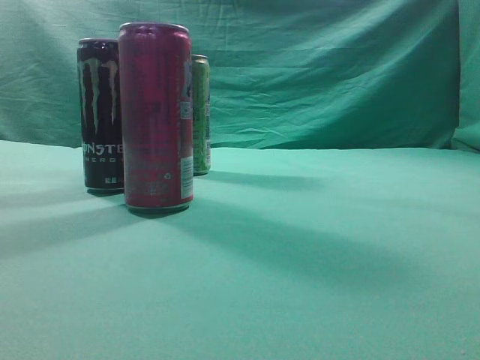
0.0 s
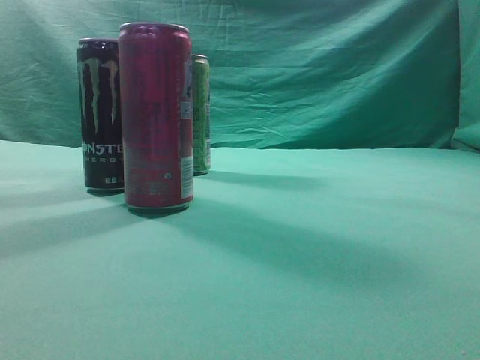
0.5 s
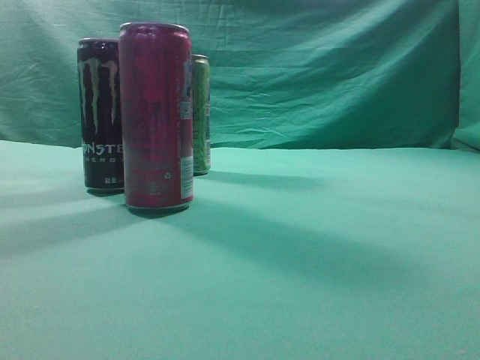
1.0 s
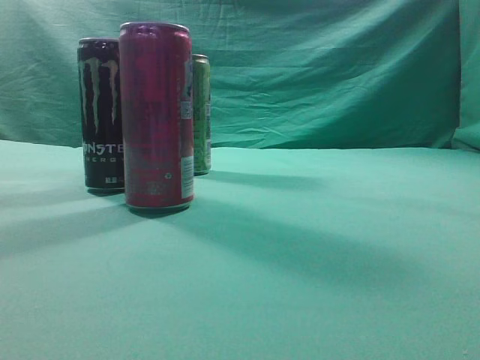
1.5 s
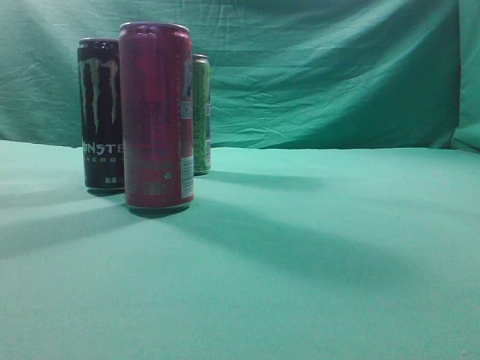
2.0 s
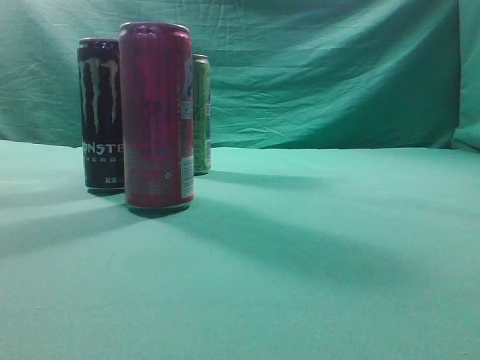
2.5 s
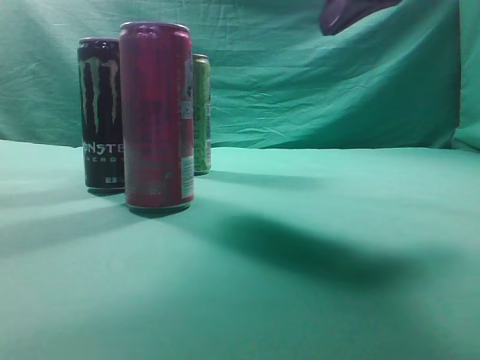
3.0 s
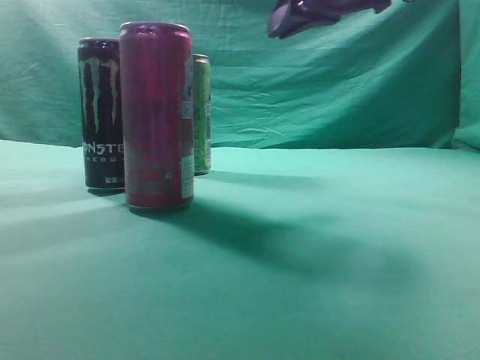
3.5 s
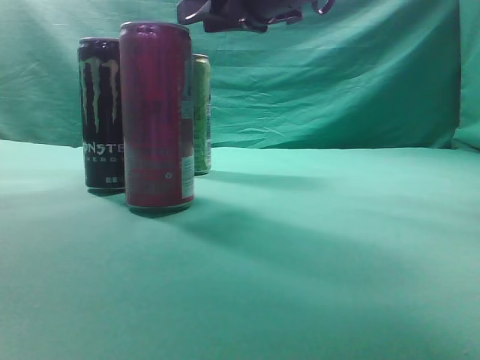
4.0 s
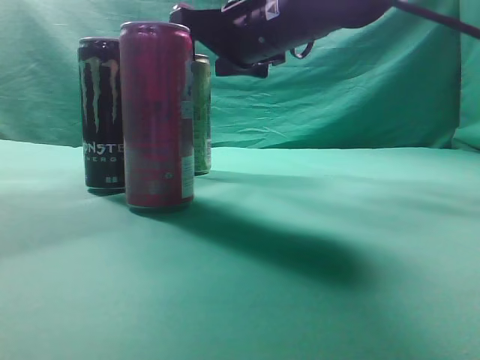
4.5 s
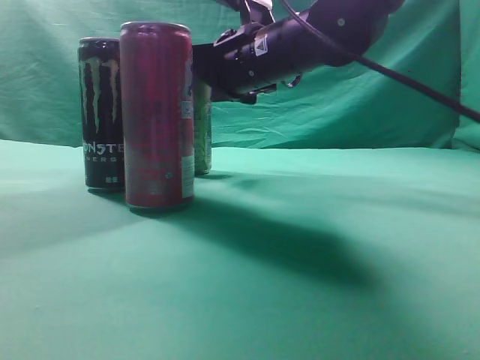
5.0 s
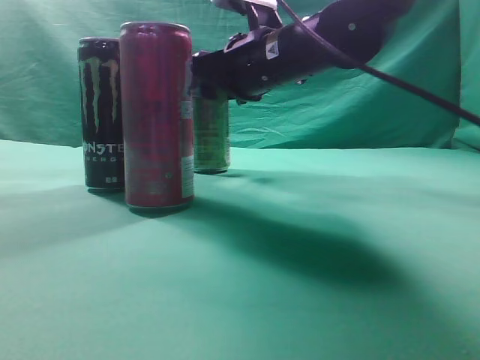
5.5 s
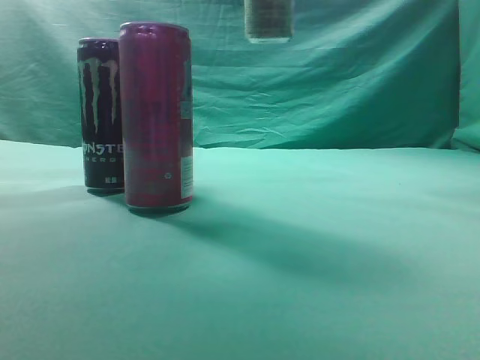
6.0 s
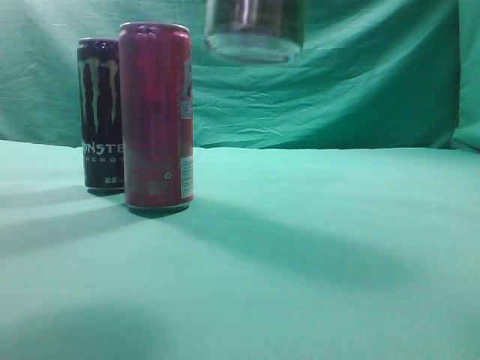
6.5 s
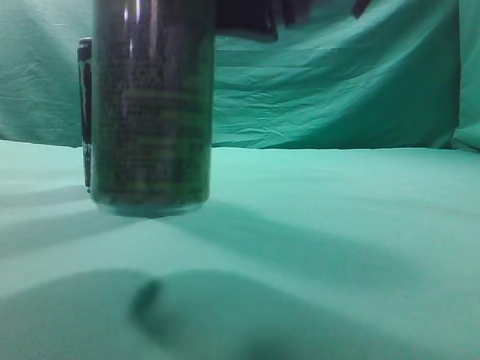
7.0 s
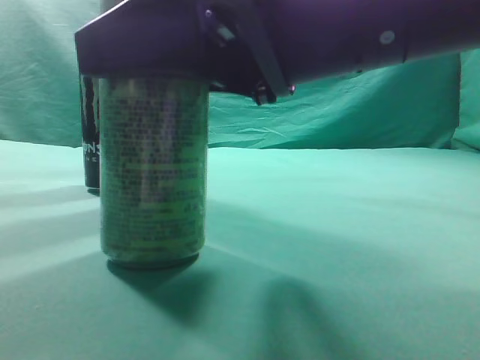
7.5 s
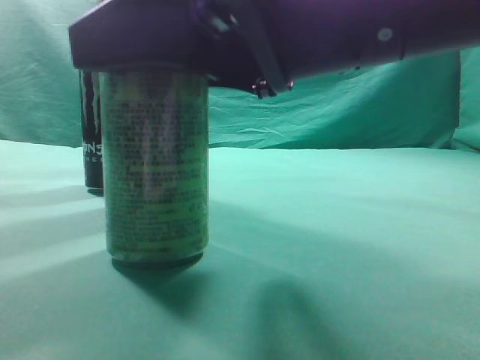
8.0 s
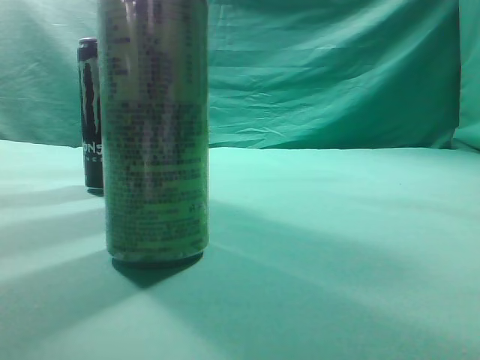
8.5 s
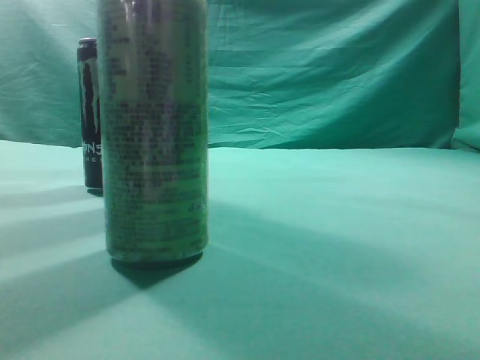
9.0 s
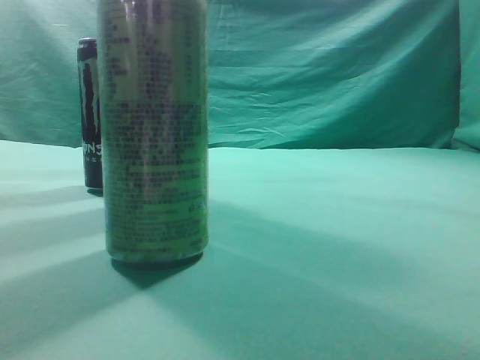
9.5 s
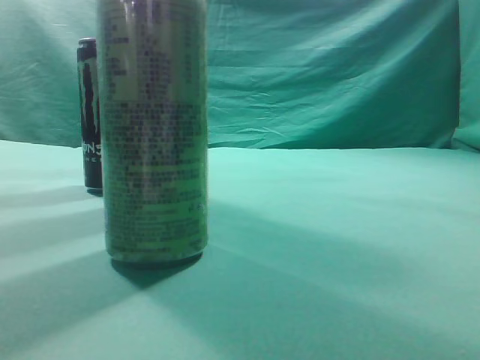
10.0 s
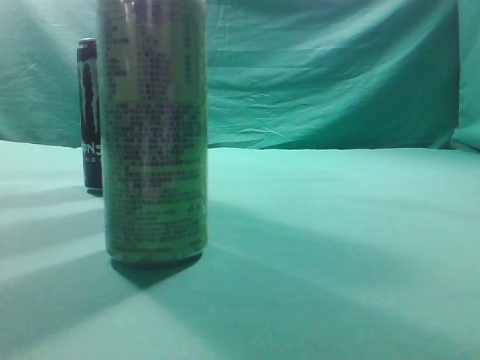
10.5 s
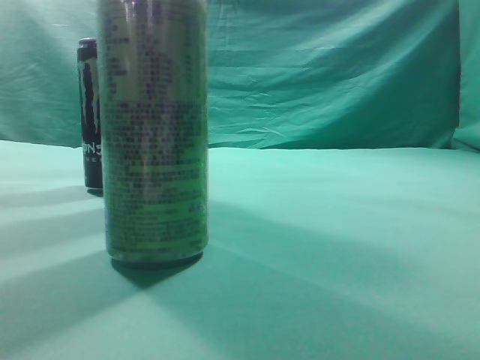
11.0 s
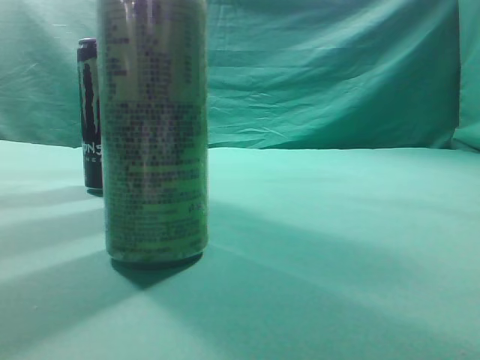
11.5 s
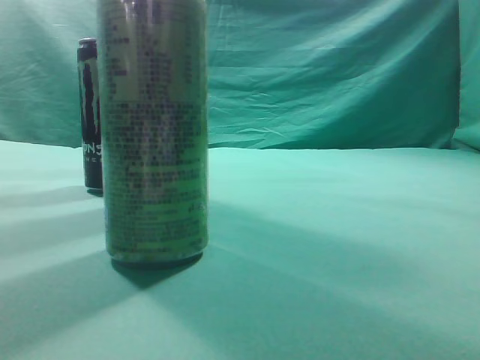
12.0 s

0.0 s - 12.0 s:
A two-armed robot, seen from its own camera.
Task of the whole recording: move one drink among three beverages.
Step, 0.0 s - 5.5 s: Grasp the beverage bottle placed at the back of the desk.
Step, 6.0 s - 8.0 s: Place the beverage bottle to the front of the table.
2.0 s - 4.0 s: The right gripper moves forward and to the left, roughly 35 cm, and opens up.
4.0 s - 6.0 s: The right gripper shifts approximately 10 cm upward and to the right.
6.0 s - 8.0 s: The right gripper shifts about 25 cm backward and downward.
8.0 s - 10.0 s: The right gripper shifts about 25 cm to the right, upward and backward, and closes up.
